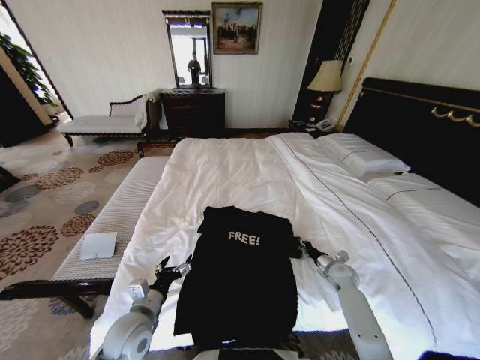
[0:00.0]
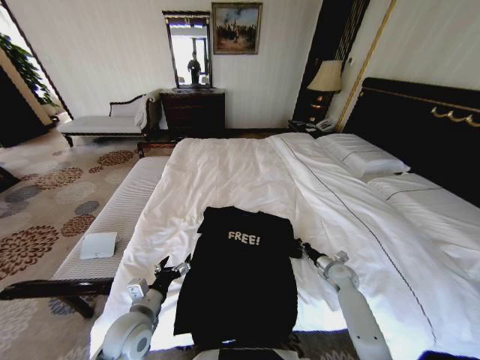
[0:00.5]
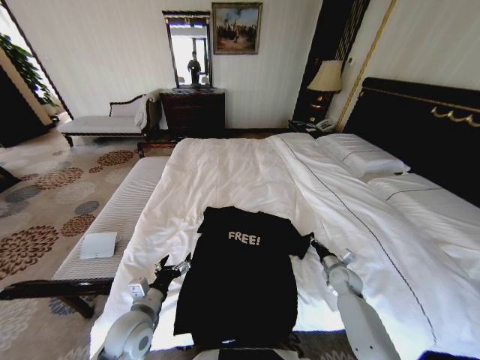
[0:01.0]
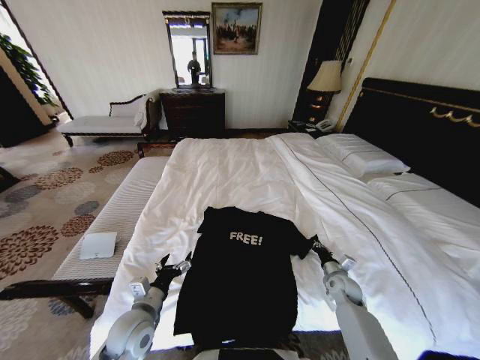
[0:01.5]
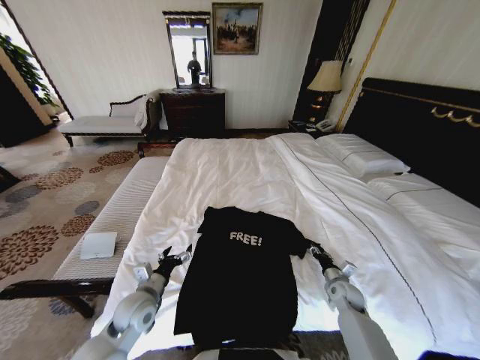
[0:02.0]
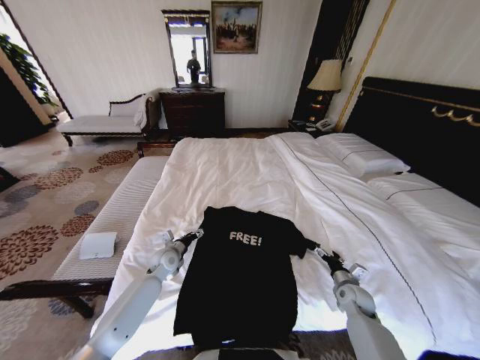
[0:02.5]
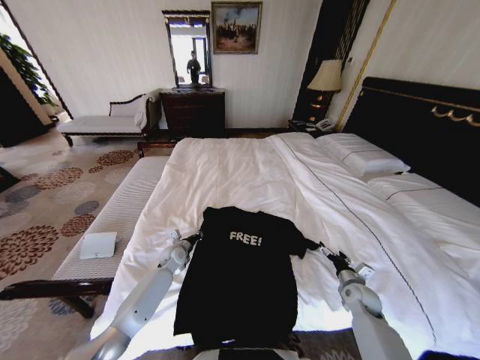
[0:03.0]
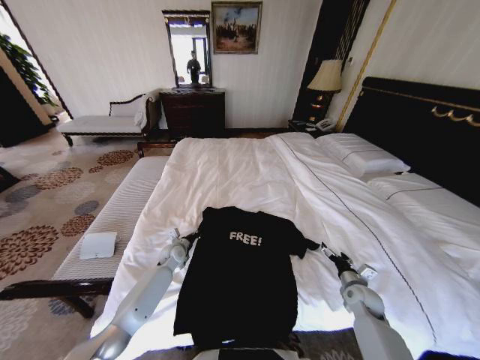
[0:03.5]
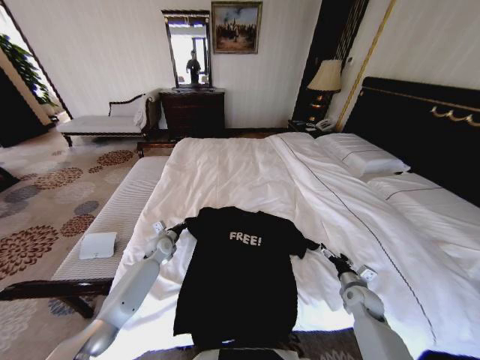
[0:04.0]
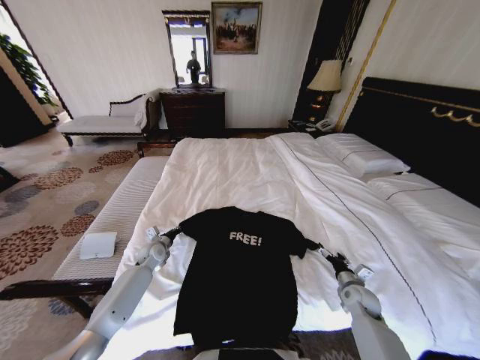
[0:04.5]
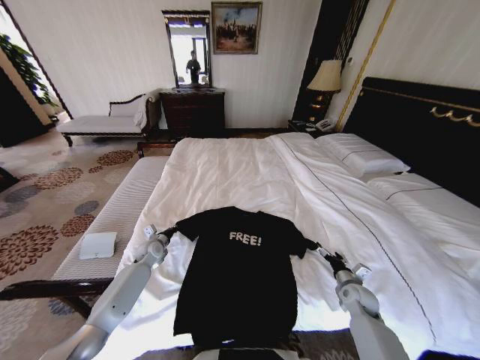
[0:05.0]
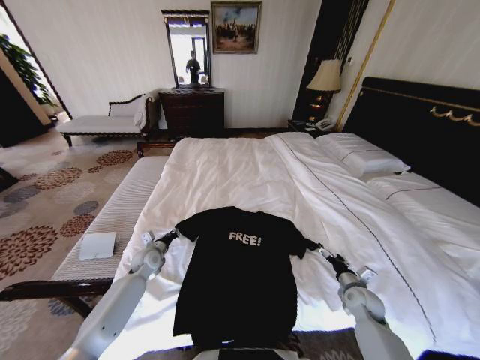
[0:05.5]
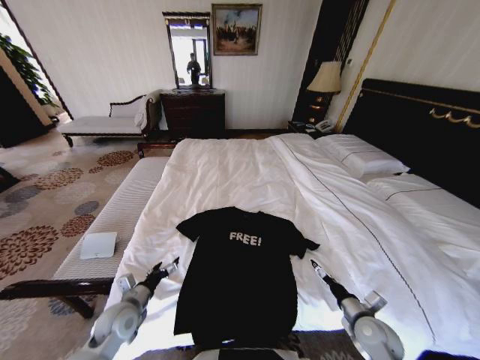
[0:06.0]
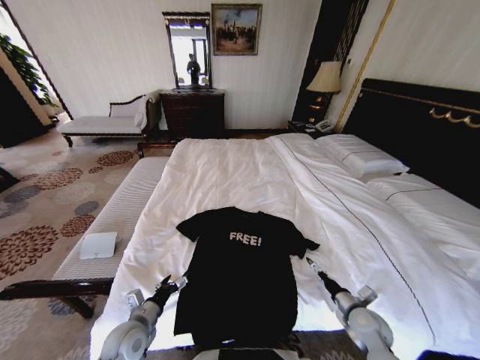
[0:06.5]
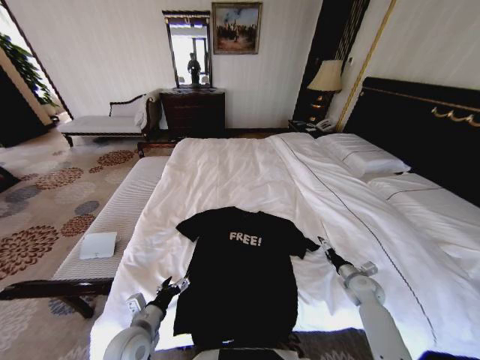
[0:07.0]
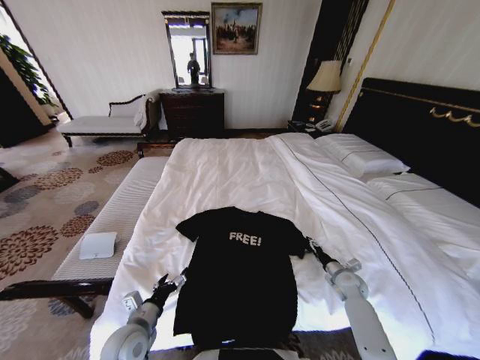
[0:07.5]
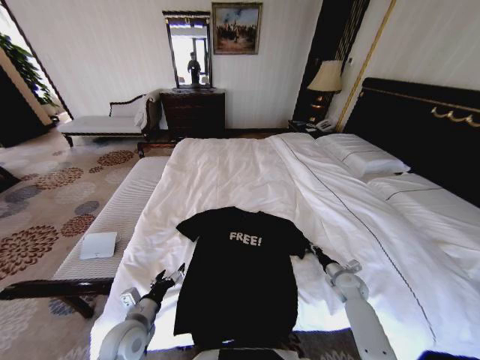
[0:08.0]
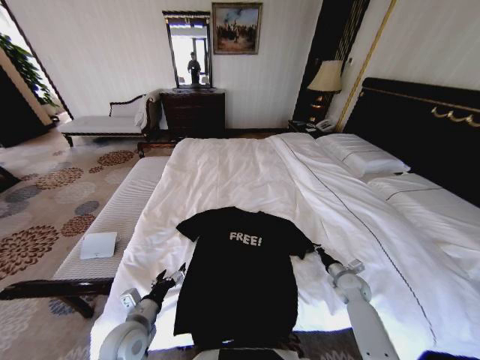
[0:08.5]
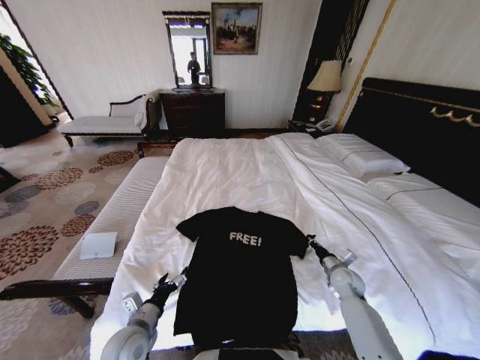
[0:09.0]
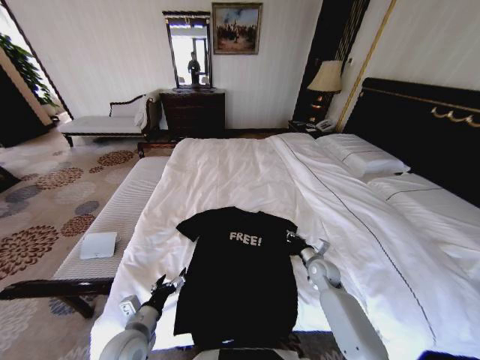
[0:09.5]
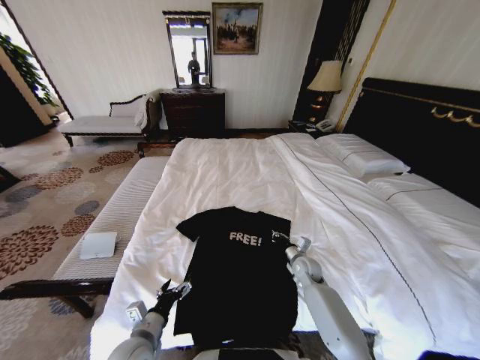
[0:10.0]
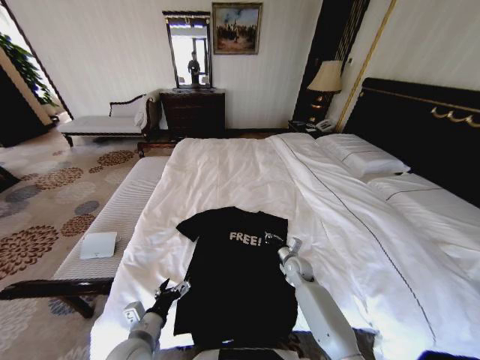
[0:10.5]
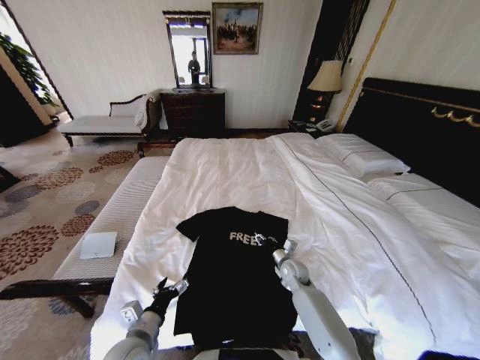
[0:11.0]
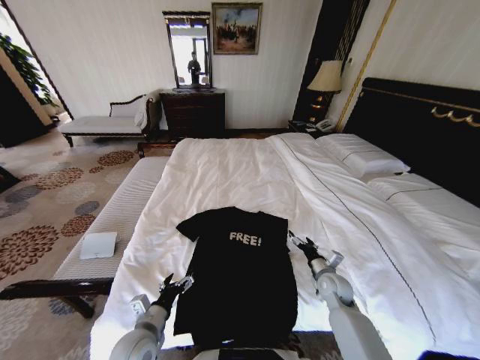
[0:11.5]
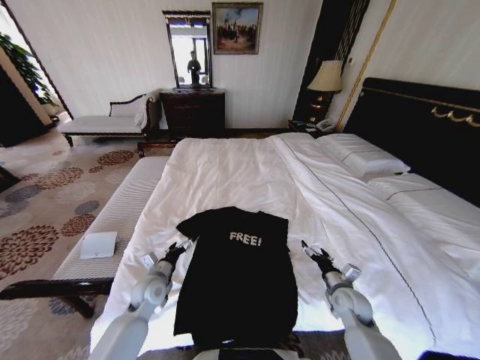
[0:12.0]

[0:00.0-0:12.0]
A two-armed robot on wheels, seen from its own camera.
Task of the whole recording: Fold the clothes on the bed.
0:00.0 to 0:02.0: The right gripper goes some 5 cm backward.
0:02.0 to 0:04.0: The left gripper goes roughly 20 cm forward, and closes up. Meanwhile the right gripper opens.
0:04.0 to 0:06.0: The left gripper heads backward, covering about 25 cm, and opens up; the right gripper travels backward by about 10 cm.
0:06.0 to 0:08.0: The left gripper ends up some 5 cm from where it was. Meanwhile the right gripper shifts some 15 cm forward, and closes its fingers.
0:08.0 to 0:10.0: The right gripper goes about 15 cm to the left.
0:10.0 to 0:12.0: The left gripper is displaced forward by approximately 15 cm. The right gripper shifts some 15 cm backward and to the right, and opens.

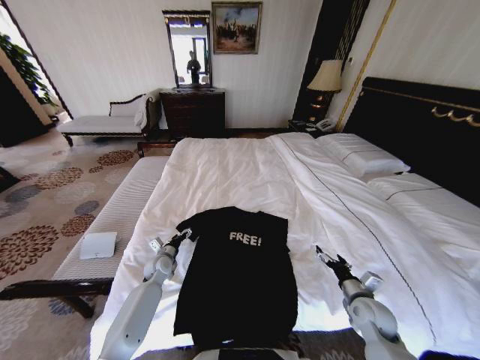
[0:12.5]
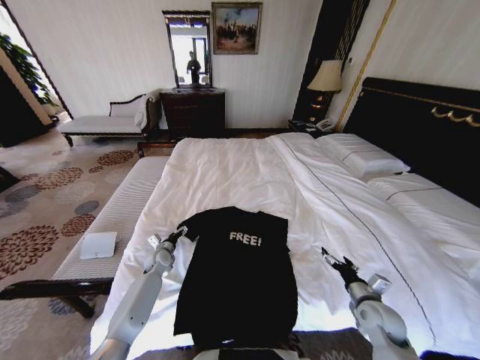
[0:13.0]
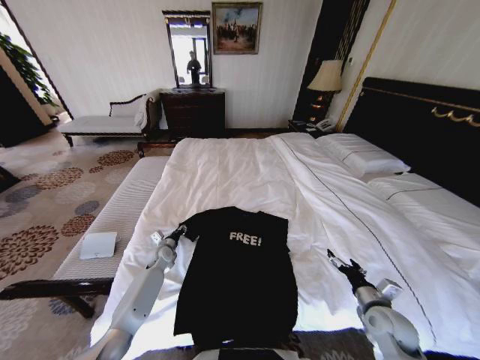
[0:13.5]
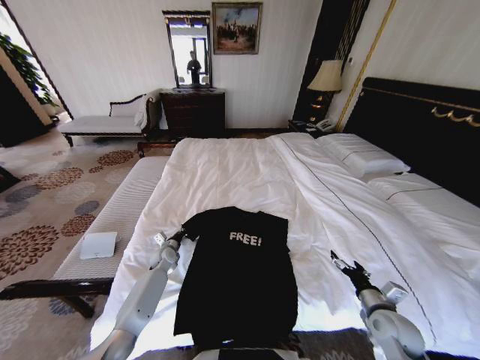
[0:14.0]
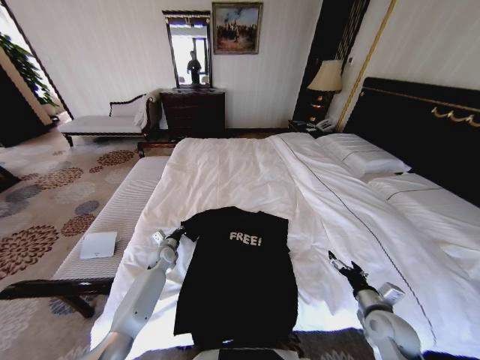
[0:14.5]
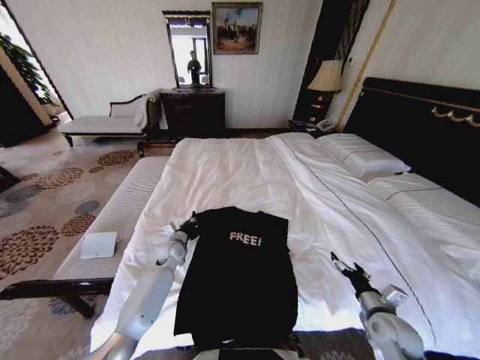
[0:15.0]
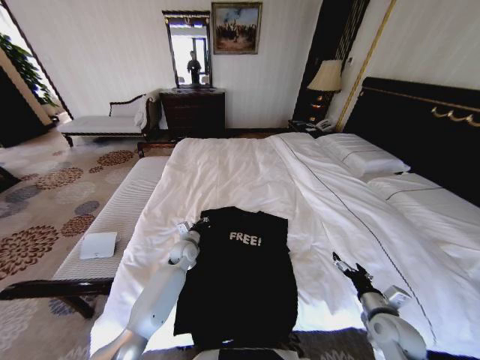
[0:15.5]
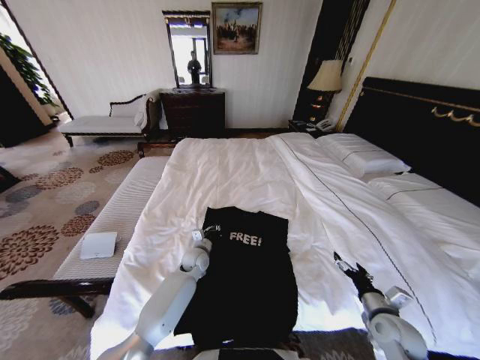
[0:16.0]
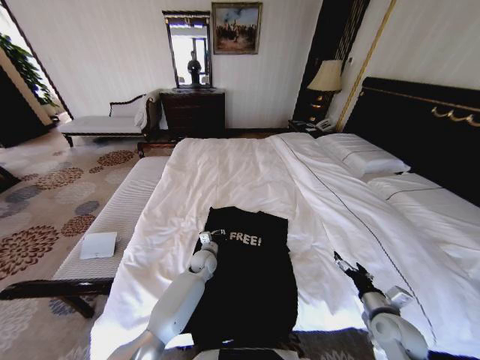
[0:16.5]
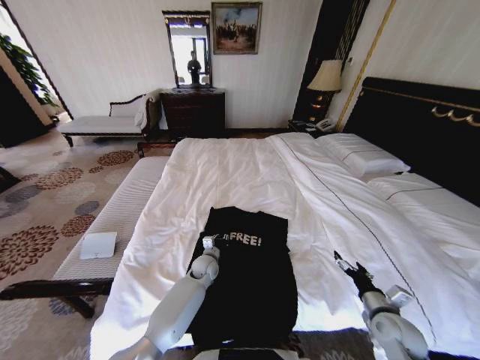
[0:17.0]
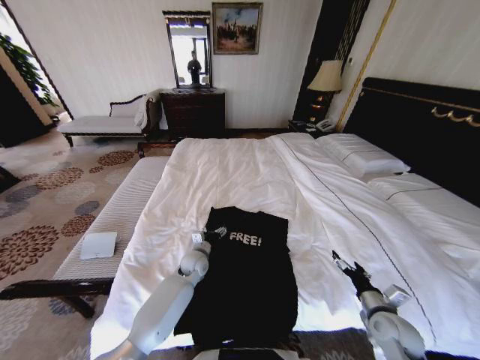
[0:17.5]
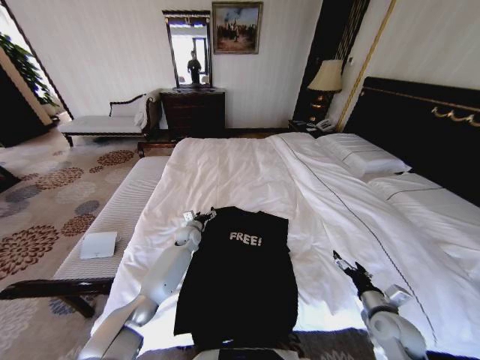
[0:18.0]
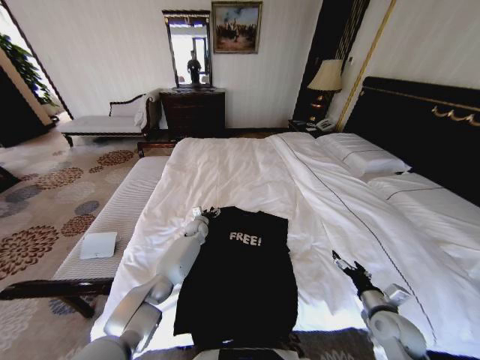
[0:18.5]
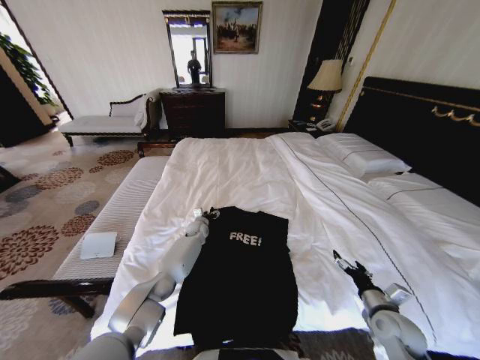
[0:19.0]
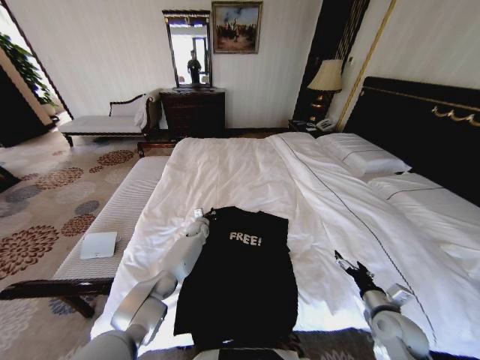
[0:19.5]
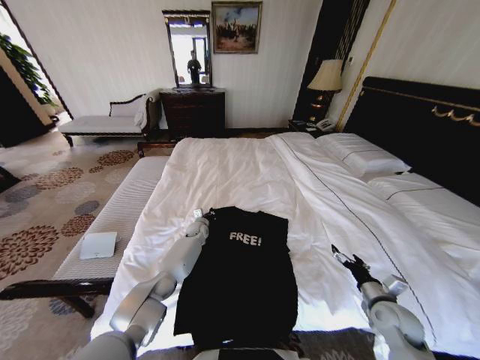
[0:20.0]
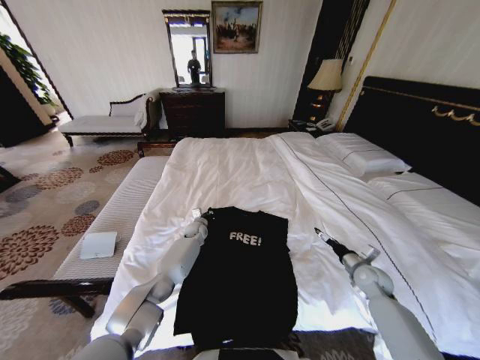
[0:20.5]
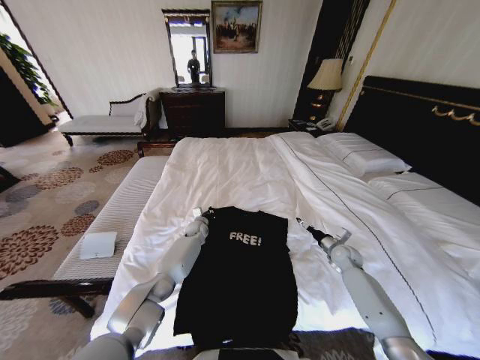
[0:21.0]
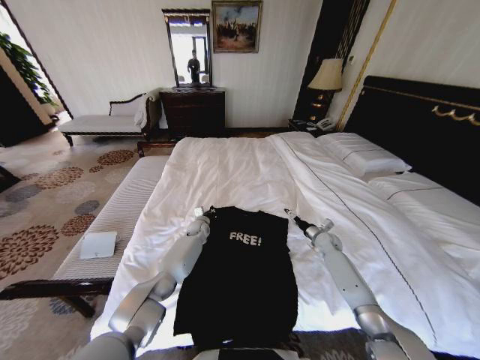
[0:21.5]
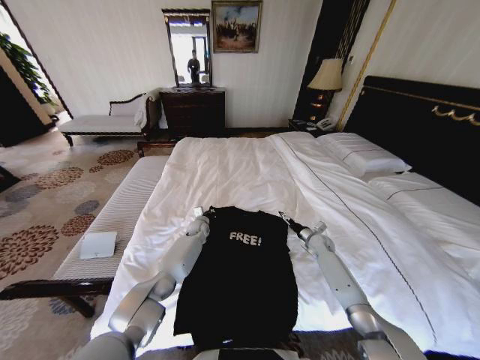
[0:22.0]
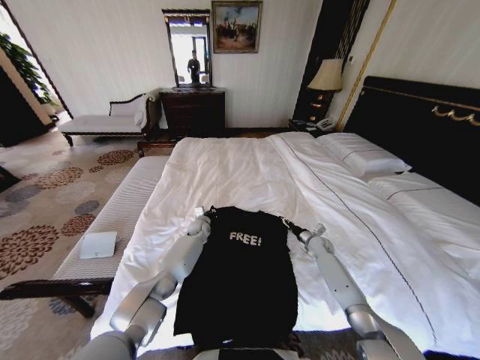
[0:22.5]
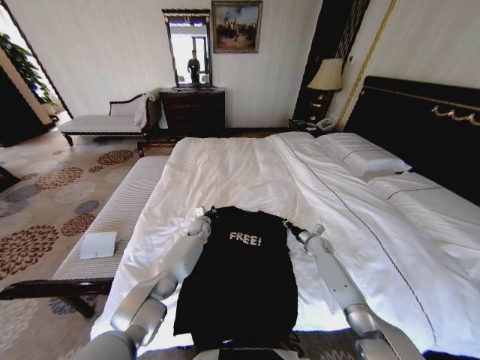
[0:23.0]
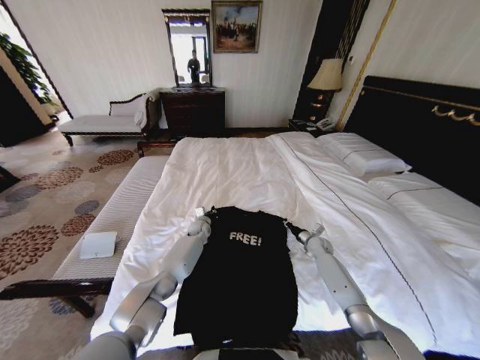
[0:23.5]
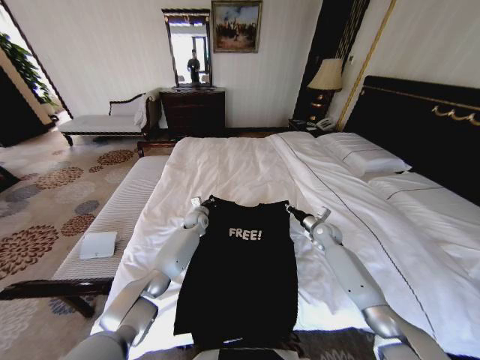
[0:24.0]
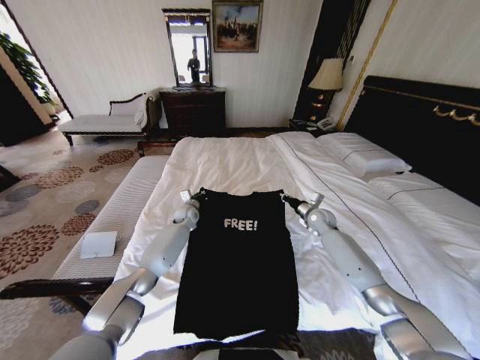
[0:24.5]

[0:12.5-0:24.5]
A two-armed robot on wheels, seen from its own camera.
Task of the whole recording: Fold the clothes on the bed.
0:12.5 to 0:14.5: The left gripper closes.
0:14.5 to 0:16.5: The left gripper goes approximately 15 cm to the right.
0:16.5 to 0:18.5: The left gripper moves forward, approximately 15 cm, and opens up.
0:18.5 to 0:20.5: The right gripper goes about 10 cm forward. Meanwhile the left gripper closes up.
0:20.5 to 0:22.5: The right gripper heads forward and to the left, covering some 20 cm.
0:22.5 to 0:24.5: The grippers both shift upward by about 10 cm. The right gripper closes up.

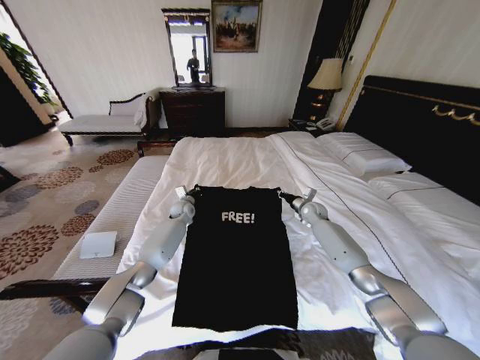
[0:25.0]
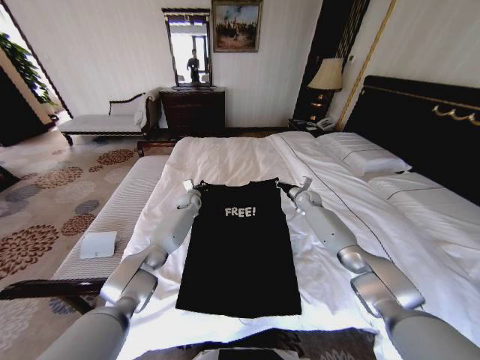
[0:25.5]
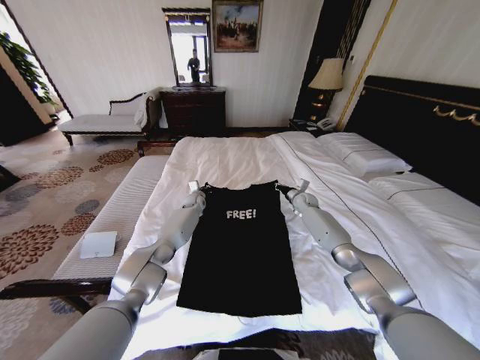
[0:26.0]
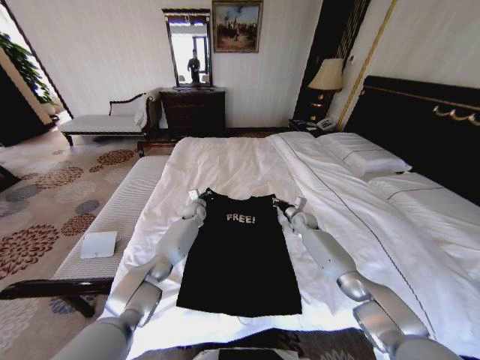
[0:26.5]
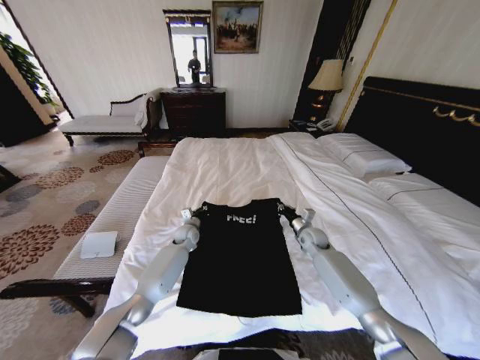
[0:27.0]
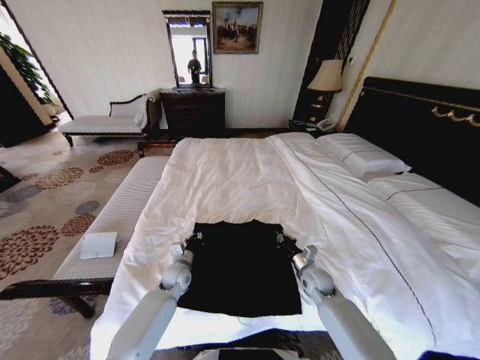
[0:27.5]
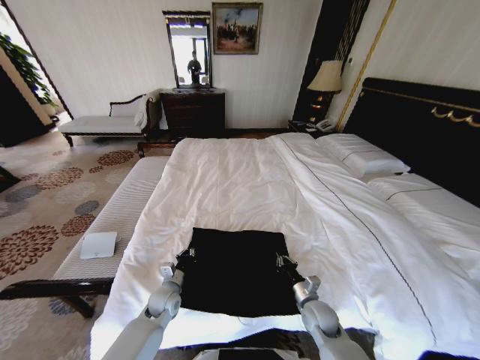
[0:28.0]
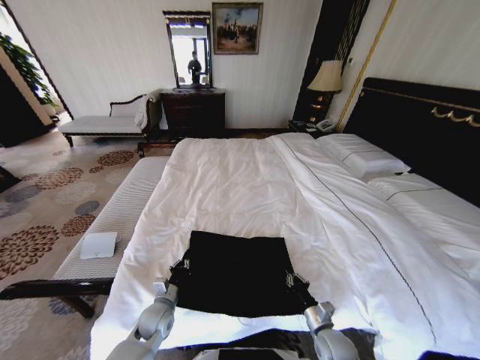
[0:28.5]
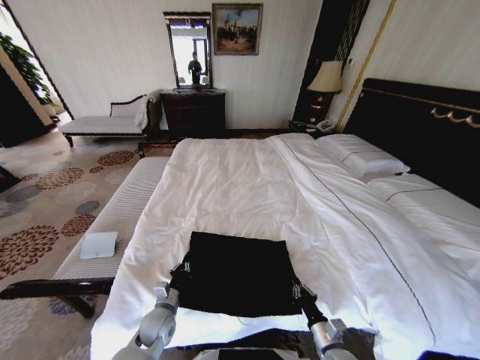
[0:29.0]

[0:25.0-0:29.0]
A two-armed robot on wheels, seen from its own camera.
Task of the whole recording: Fold the clothes on the bed.
0:25.0 to 0:27.0: The two grippers go approximately 10 cm backward and downward.
0:27.0 to 0:29.0: The grippers both shift backward by about 30 cm.
